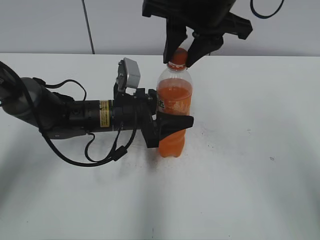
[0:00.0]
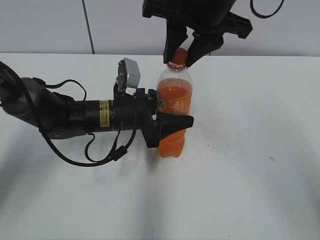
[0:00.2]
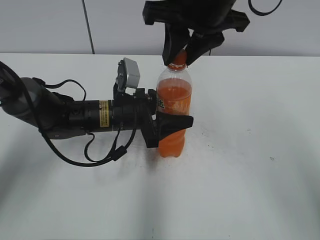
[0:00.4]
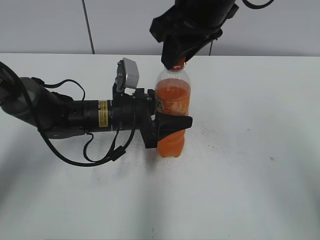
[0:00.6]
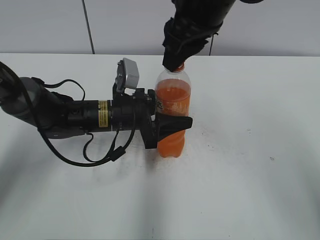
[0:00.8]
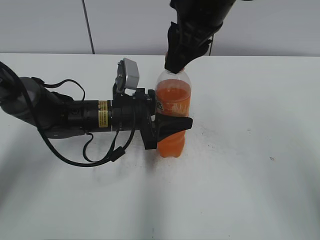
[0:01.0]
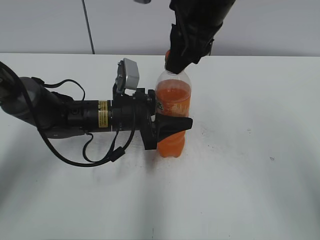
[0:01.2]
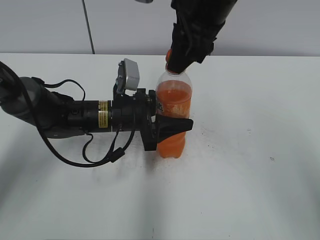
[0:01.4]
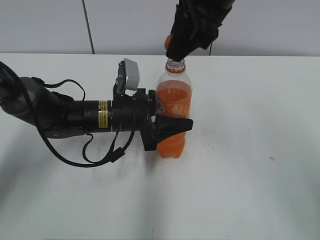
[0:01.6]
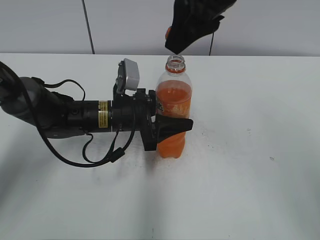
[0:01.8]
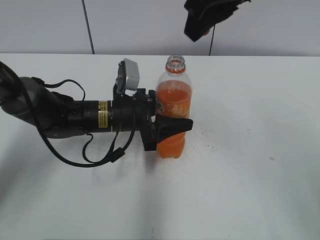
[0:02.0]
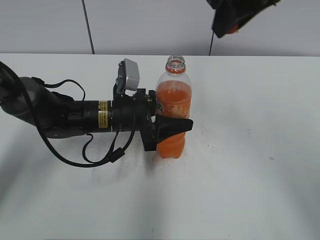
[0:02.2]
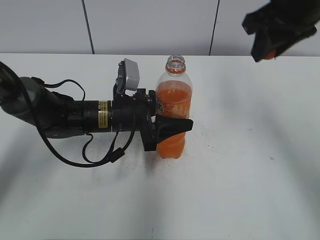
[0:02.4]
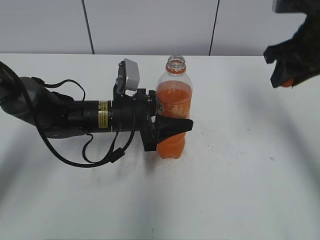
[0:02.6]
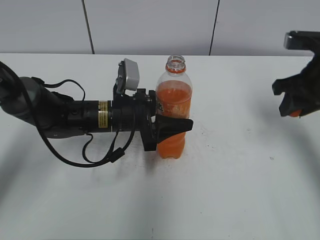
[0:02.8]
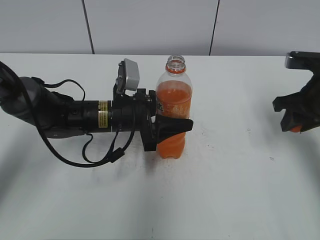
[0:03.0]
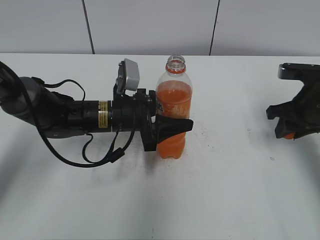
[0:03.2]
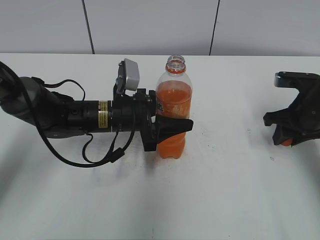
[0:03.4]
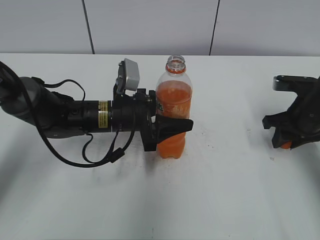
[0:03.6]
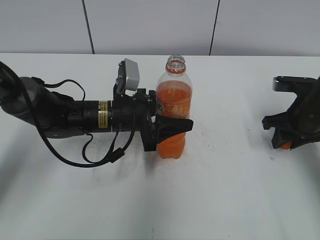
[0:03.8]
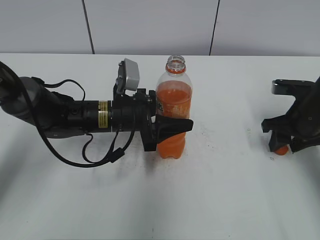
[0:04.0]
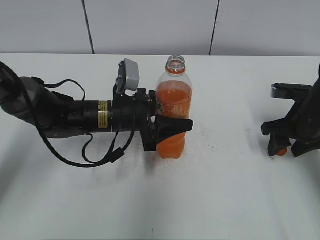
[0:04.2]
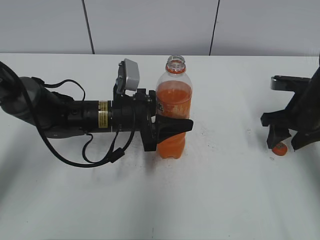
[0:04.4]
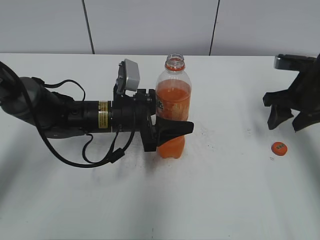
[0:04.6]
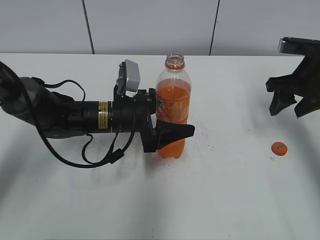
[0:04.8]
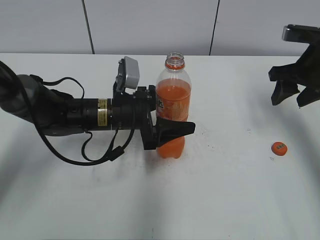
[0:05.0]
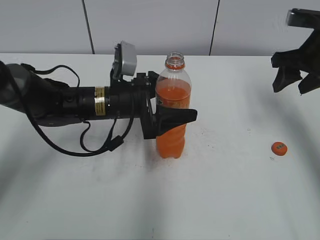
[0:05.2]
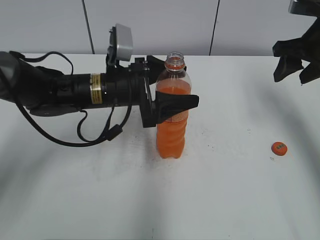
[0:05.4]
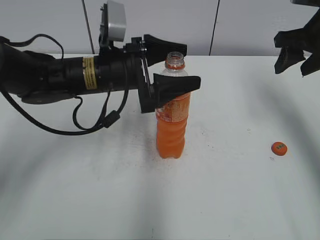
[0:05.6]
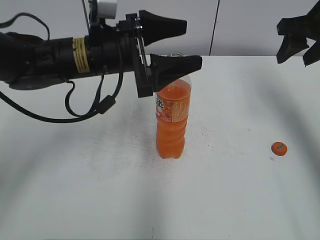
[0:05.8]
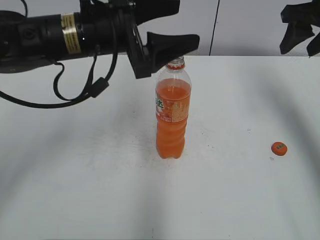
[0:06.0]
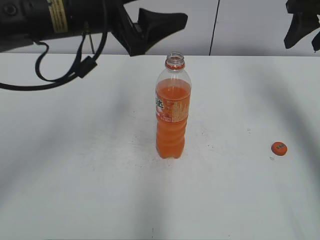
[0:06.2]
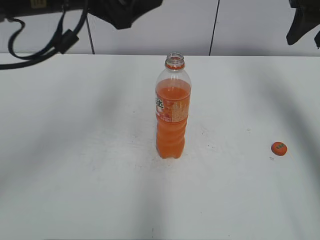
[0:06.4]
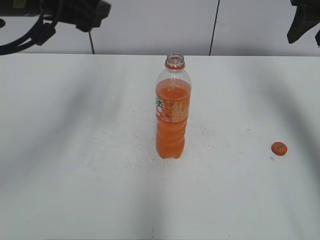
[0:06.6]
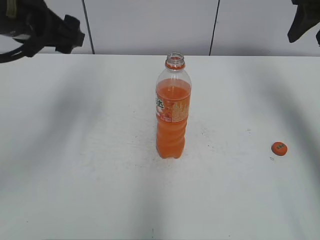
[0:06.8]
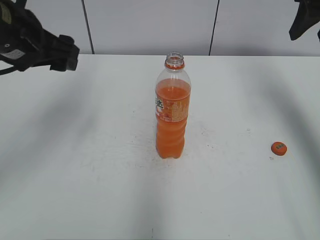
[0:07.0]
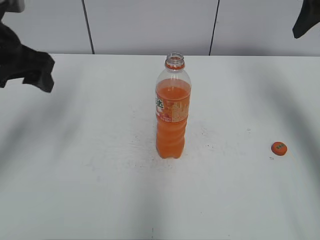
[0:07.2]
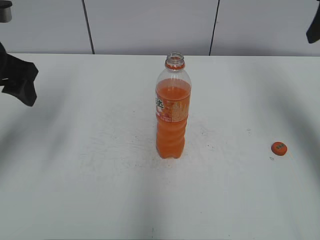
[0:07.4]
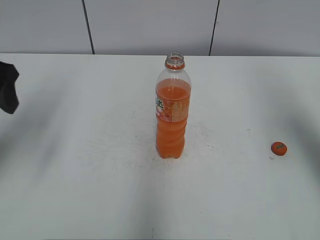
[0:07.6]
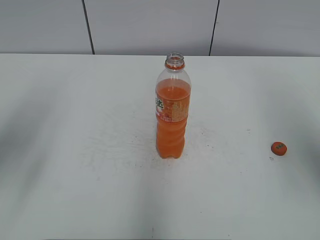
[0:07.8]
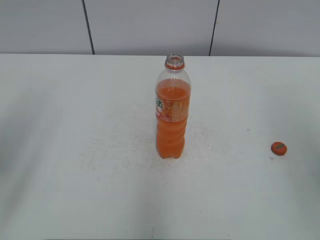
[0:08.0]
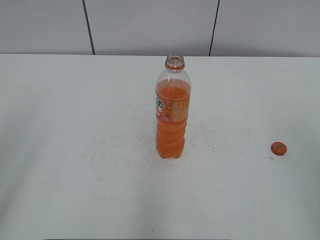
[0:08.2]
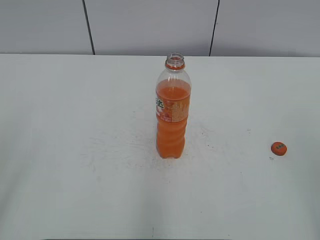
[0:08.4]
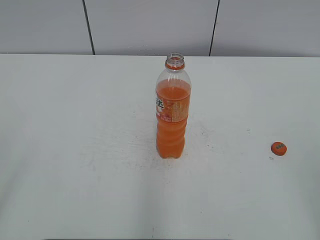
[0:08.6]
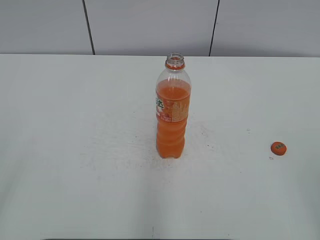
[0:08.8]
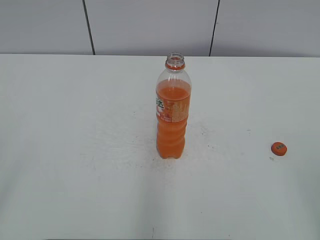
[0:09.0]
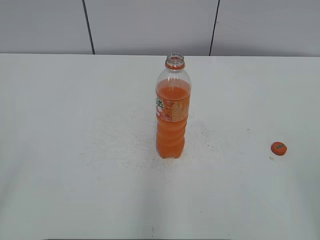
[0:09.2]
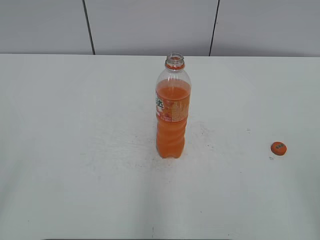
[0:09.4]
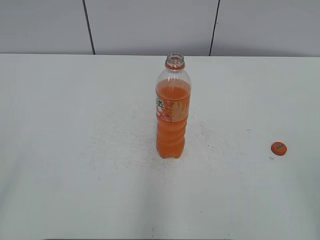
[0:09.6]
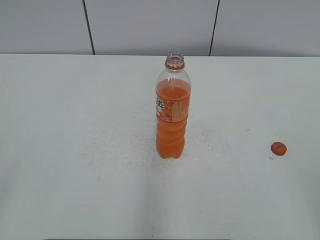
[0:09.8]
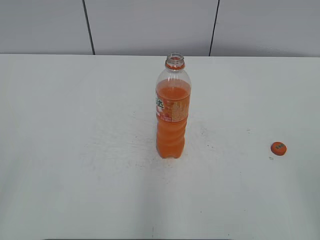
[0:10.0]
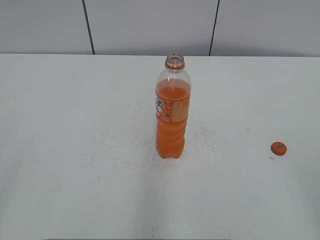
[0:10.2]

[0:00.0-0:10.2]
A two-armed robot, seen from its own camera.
Step, 0:01.6 to 0:03.8: Place the bottle cap on the right.
0:01.4 to 0:03.0: The right gripper is displaced to the right and downward by about 25 cm.
0:03.0 to 0:04.4: The right gripper heads downward, covering some 5 cm, and opens its fingers.
0:04.4 to 0:05.8: Both grippers move upward, about 15 cm. The left gripper opens up.
0:05.8 to 0:07.2: The right gripper is displaced upward by roughly 5 cm. Meanwhile the left gripper heads to the left, covering some 15 cm.
0:07.2 to 0:08.8: Both grippers move backward, roughly 35 cm.
